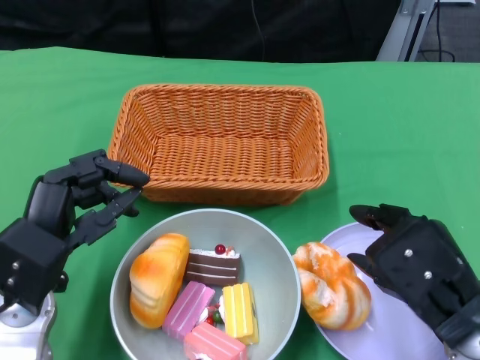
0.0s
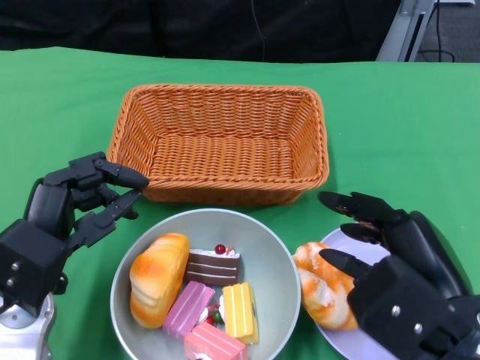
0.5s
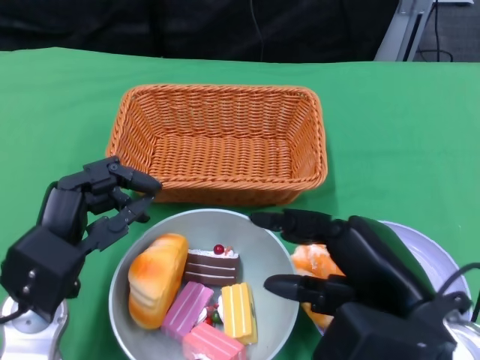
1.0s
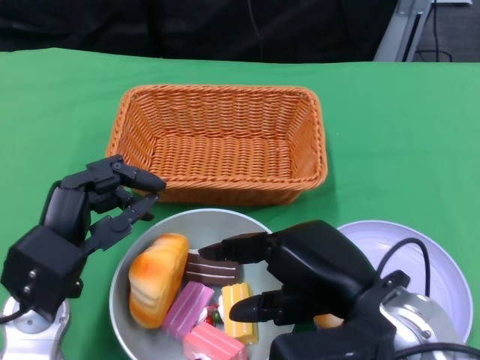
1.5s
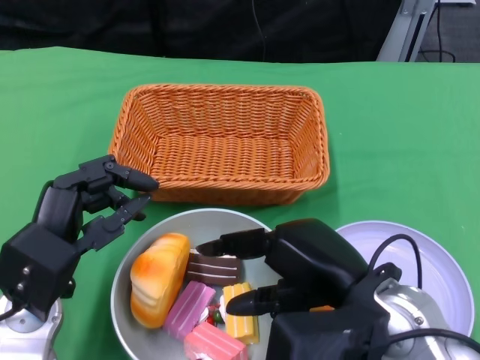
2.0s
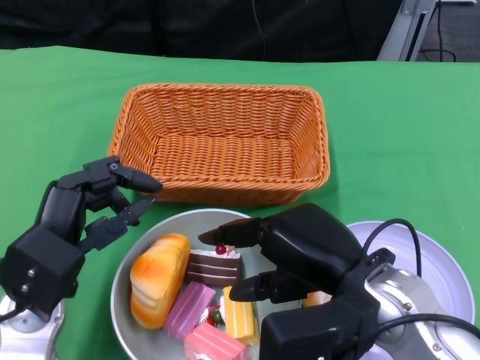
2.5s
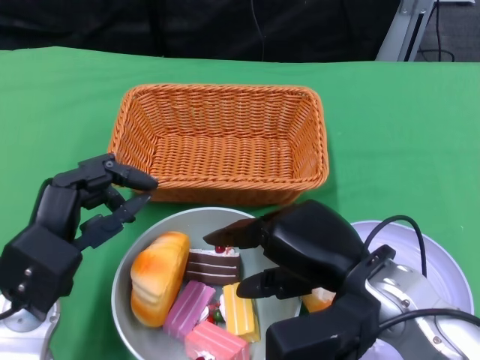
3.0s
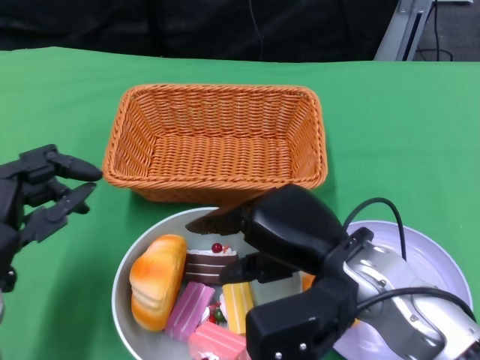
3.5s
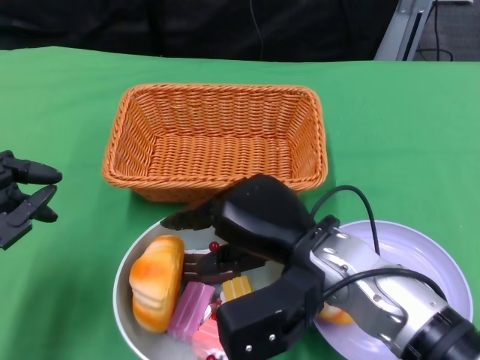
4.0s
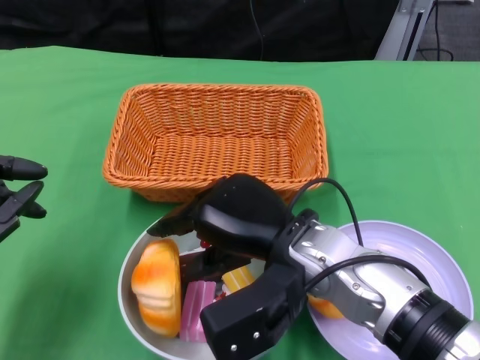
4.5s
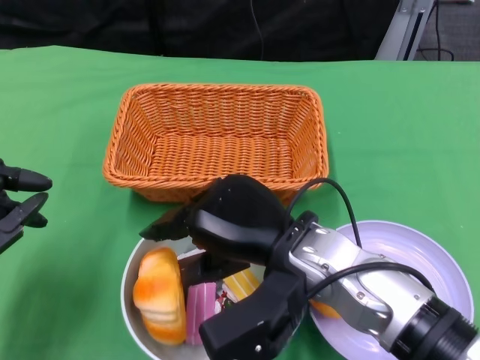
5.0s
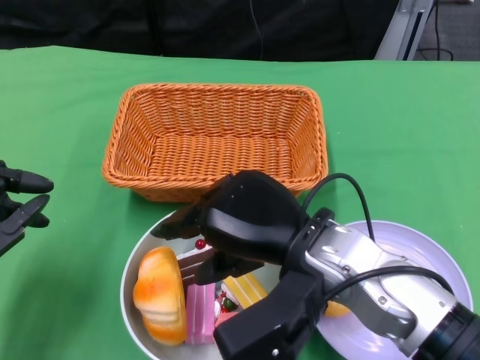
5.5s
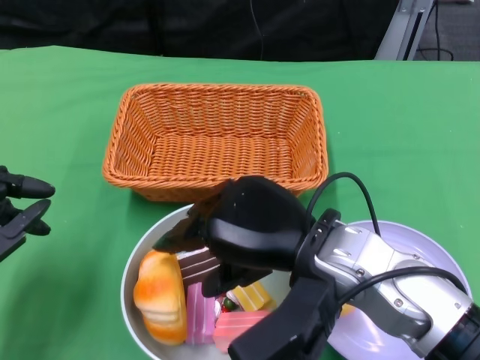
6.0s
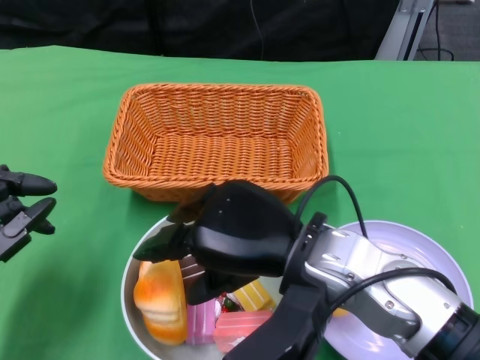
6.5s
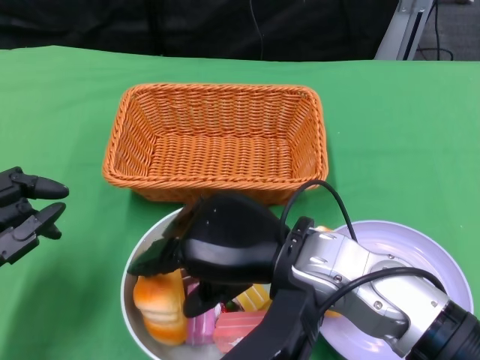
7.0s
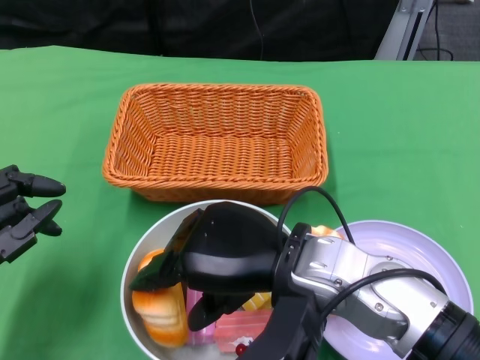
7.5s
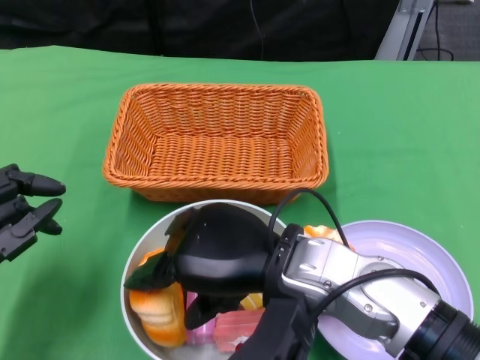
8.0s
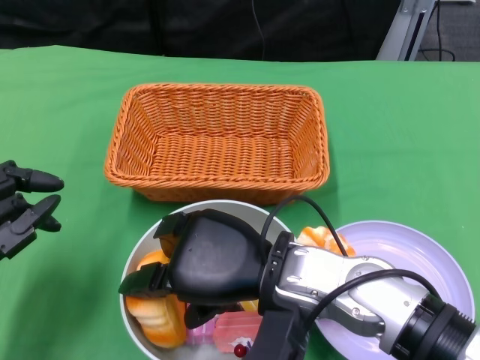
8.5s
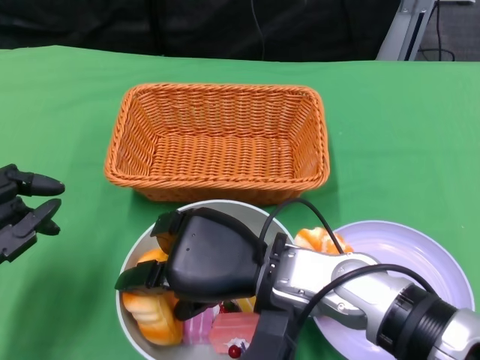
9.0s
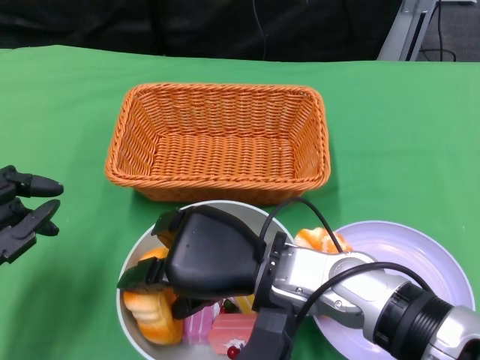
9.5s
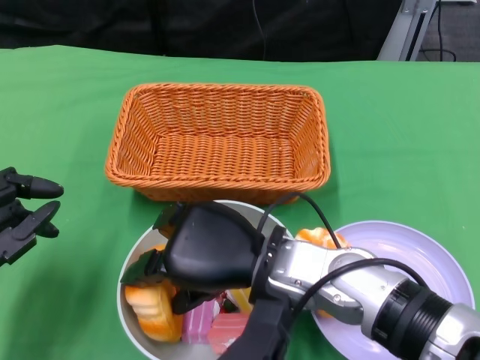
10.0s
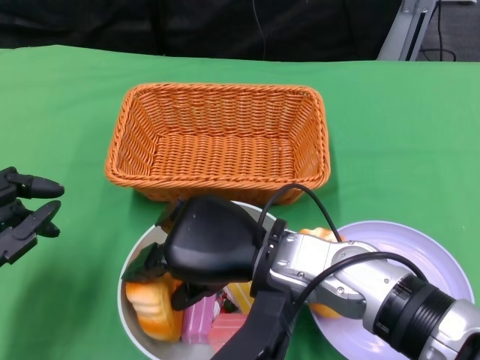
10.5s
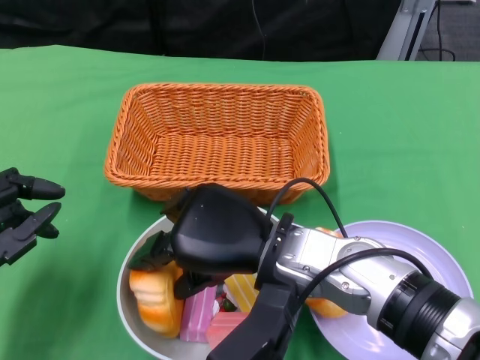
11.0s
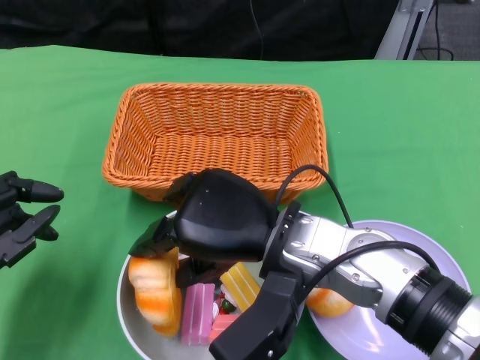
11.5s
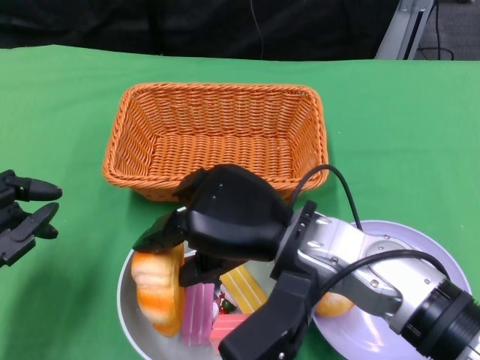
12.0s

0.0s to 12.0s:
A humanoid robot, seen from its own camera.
0.0s to 2.0s: The right hand shifts roughly 5 cm to the left.
2.0s to 4.0s: The left hand travels to the left by roughly 5 cm. The right hand ends up some 5 cm from where it was.
8.0s to 10.0s: The hands stay close to where they were, moving slightly.

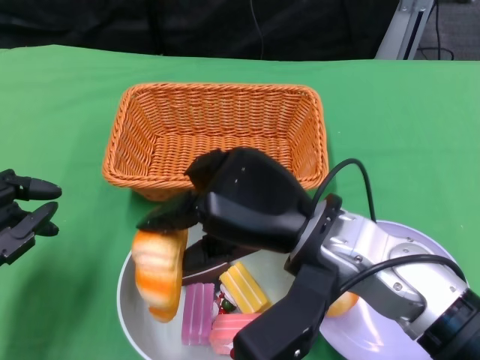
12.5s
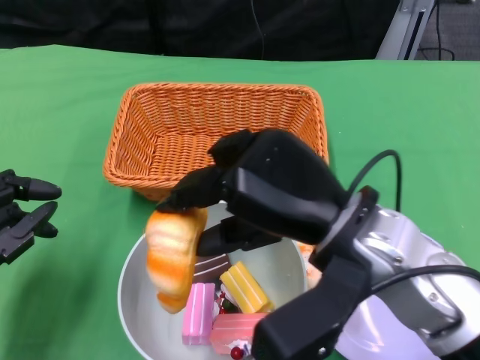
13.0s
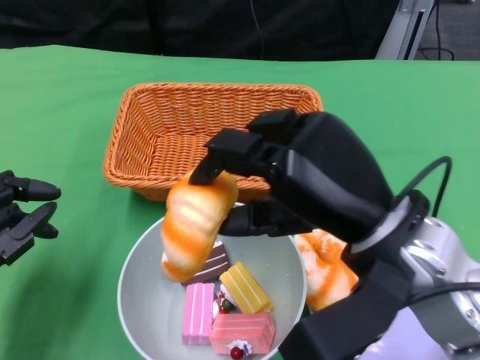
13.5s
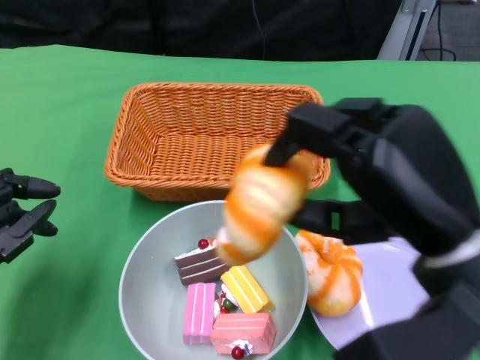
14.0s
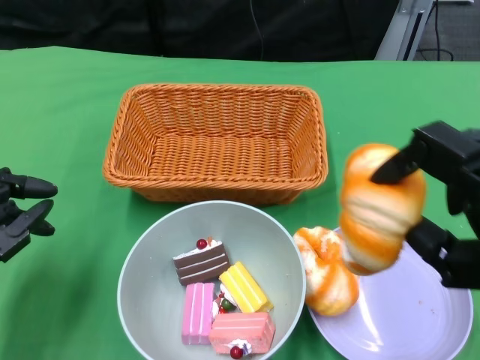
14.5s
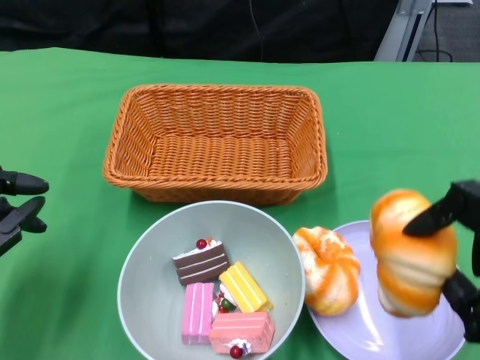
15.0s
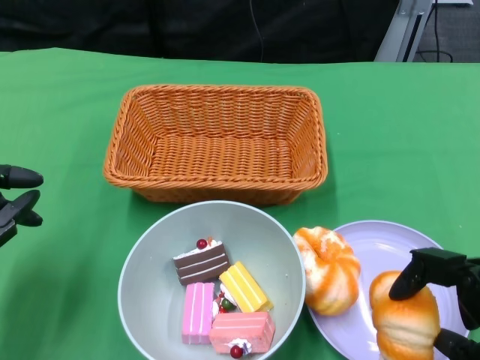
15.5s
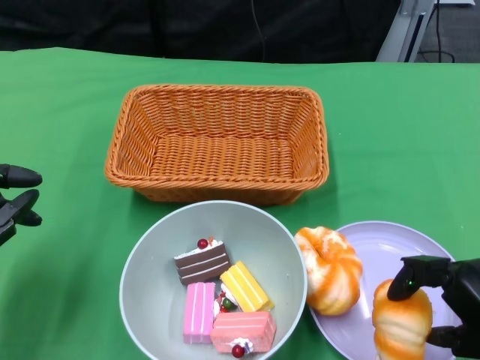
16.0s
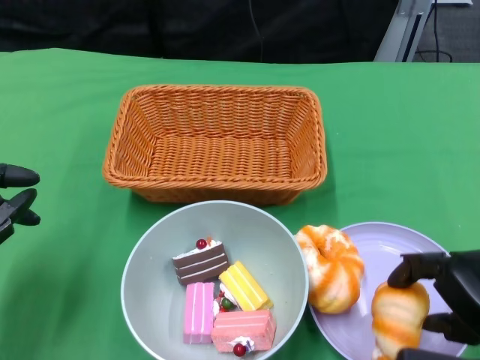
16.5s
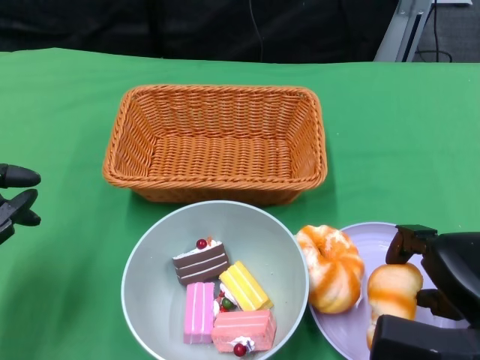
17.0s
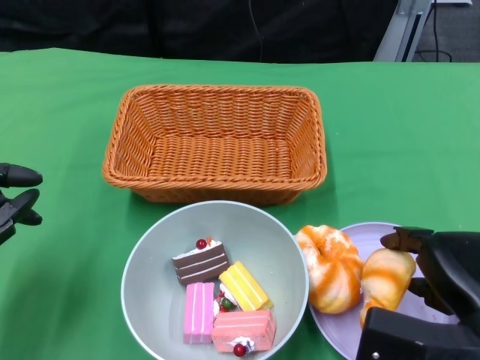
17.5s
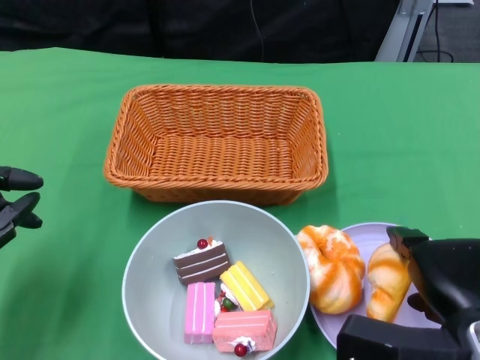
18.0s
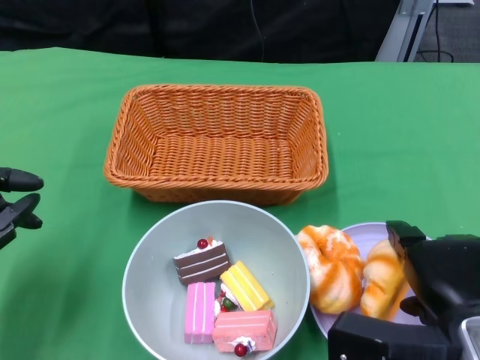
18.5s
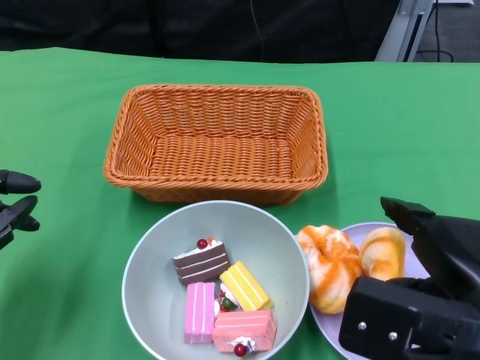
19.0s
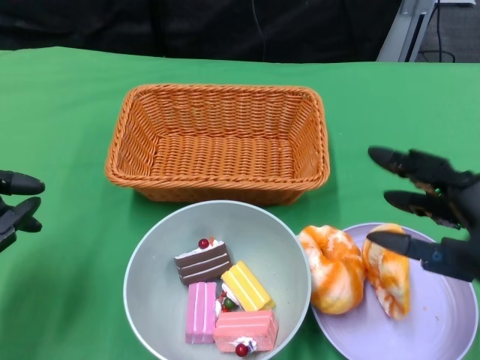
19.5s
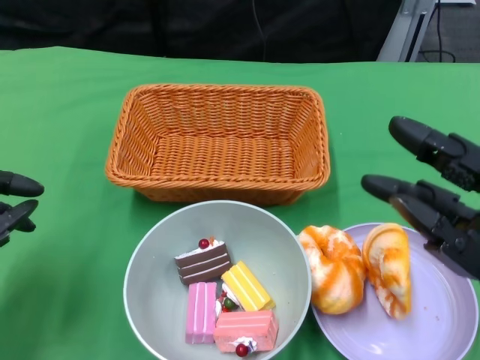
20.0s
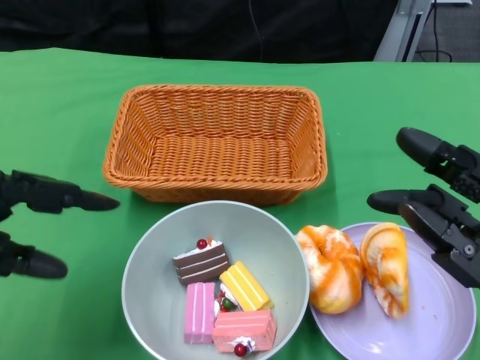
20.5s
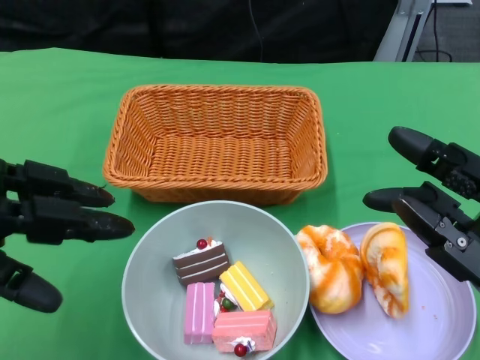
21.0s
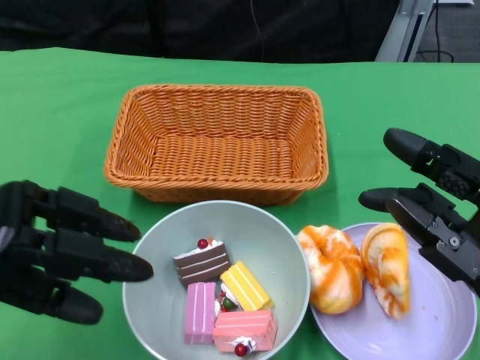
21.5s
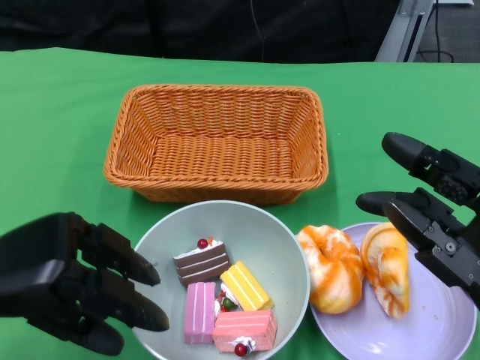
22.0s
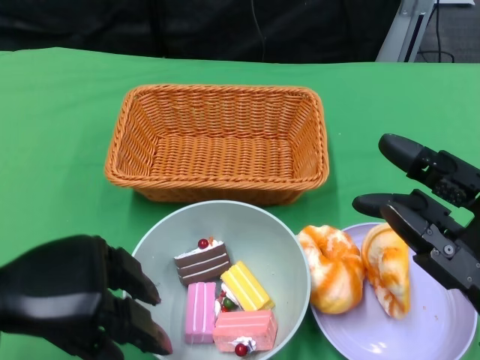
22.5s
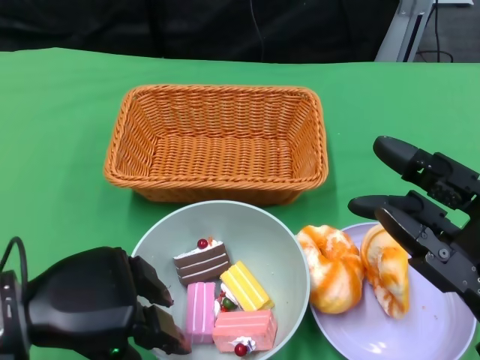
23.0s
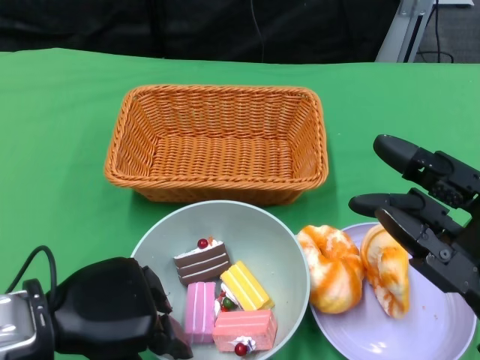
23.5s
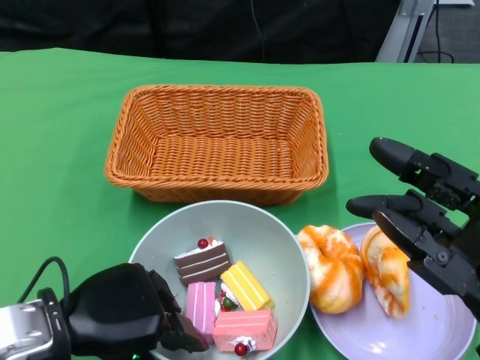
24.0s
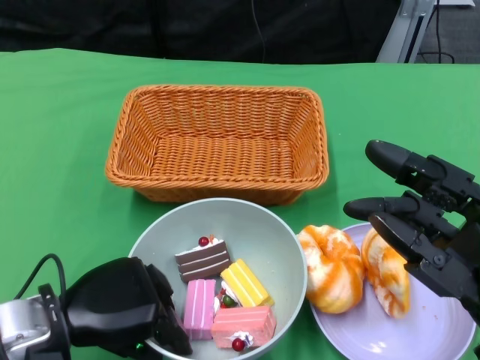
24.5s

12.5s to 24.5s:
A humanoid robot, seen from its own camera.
Step, 12.5s to 19.5s: Pick up the bread with the right gripper and place it on the plate.
12.5s to 14.5s: The right hand goes approximately 20 cm to the right and backward.
14.5s to 16.5s: The right hand heads downward, covering about 5 cm.
16.5s to 18.5s: The right hand ends up roughly 5 cm from where it was.
18.5s to 20.5s: The right hand changes place by roughly 5 cm. Meanwhile the left hand moves upward, roughly 10 cm.
20.5s to 22.5s: The left hand goes approximately 5 cm to the right.
22.5s to 24.5s: The left hand travels downward by approximately 5 cm.

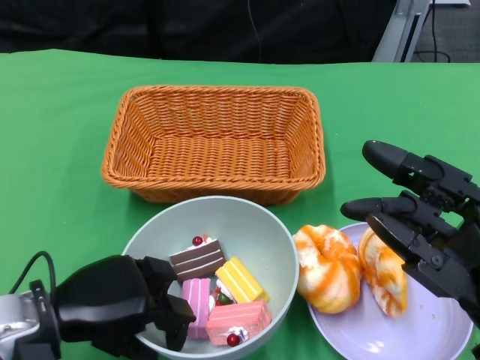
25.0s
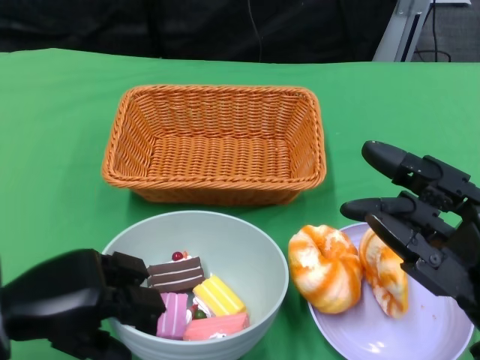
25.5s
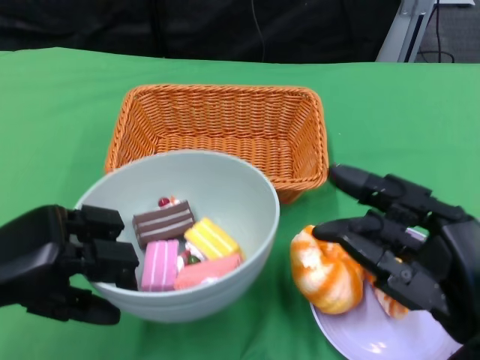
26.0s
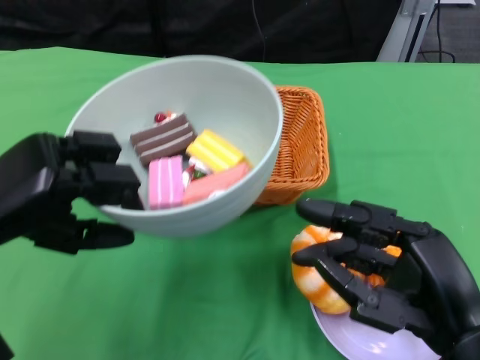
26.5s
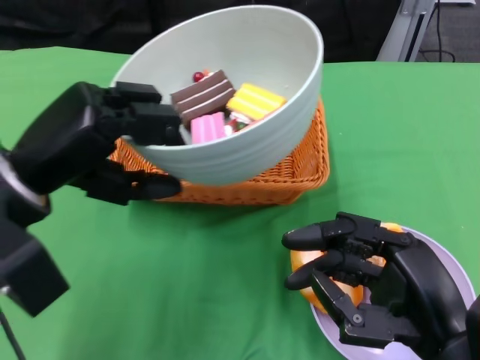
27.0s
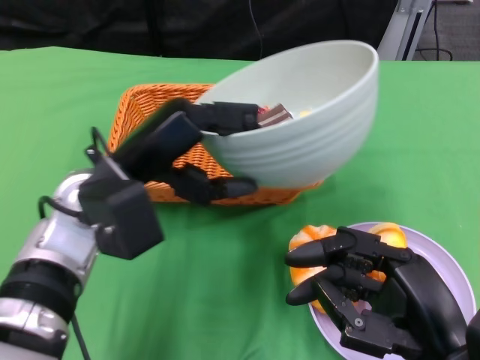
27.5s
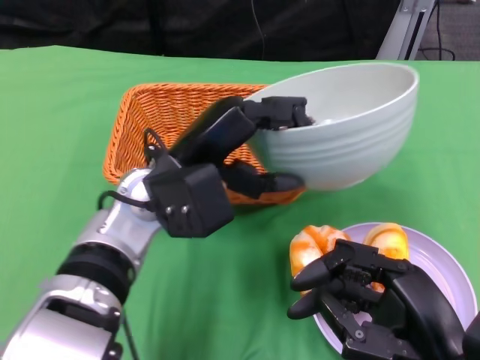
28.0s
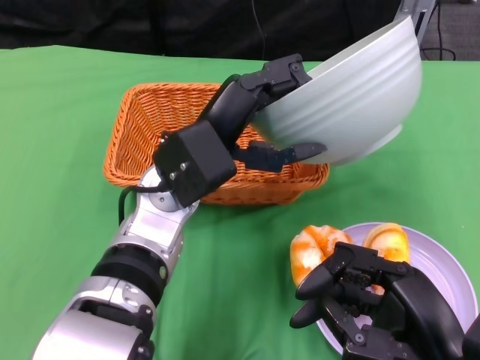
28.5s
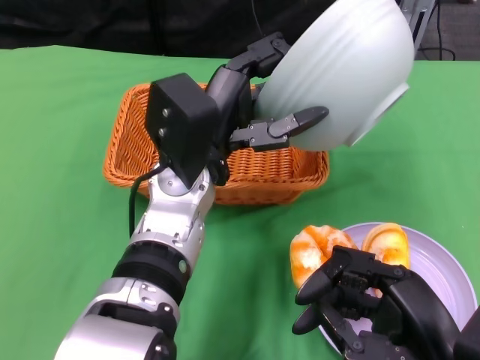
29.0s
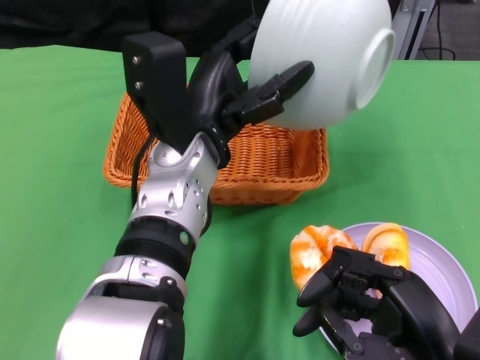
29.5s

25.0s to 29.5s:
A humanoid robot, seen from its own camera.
25.0s to 27.0s: The left hand shifts some 10 cm upward and forward.
27.0s to 29.5s: The left hand shifts approximately 15 cm to the right.
